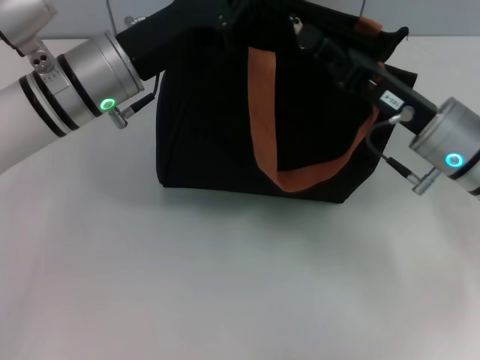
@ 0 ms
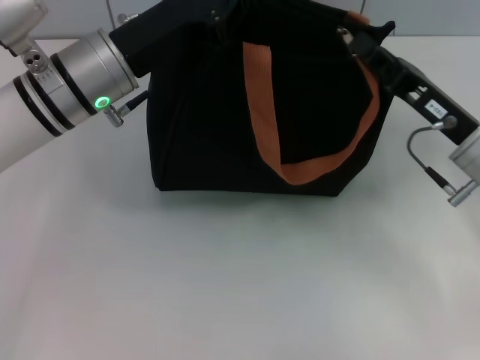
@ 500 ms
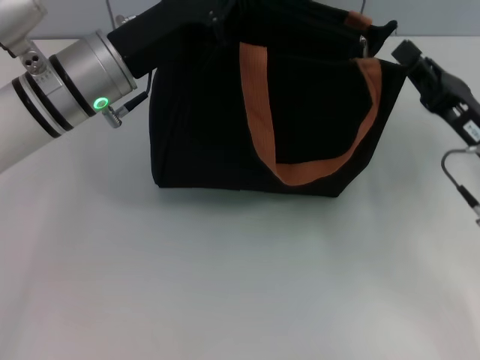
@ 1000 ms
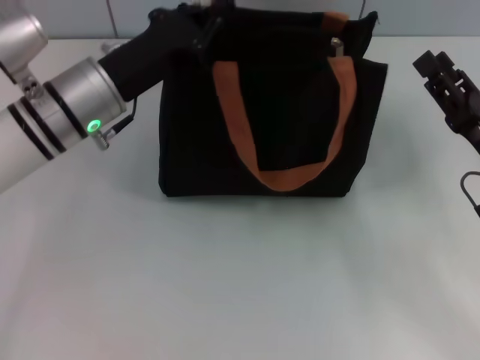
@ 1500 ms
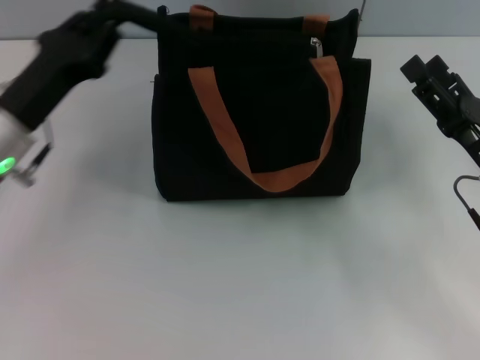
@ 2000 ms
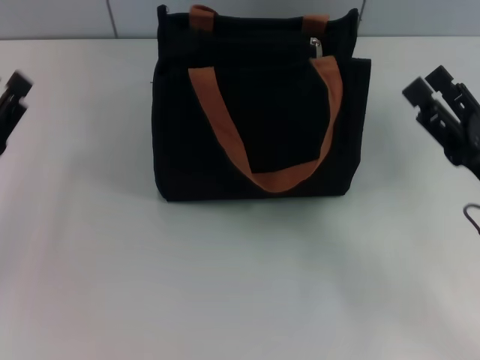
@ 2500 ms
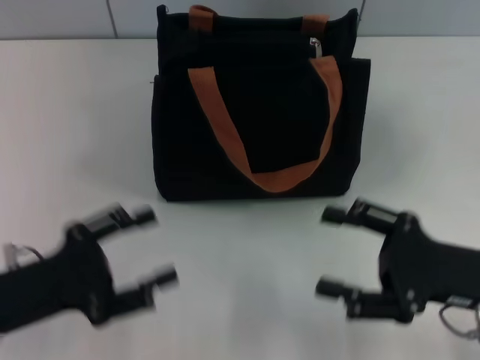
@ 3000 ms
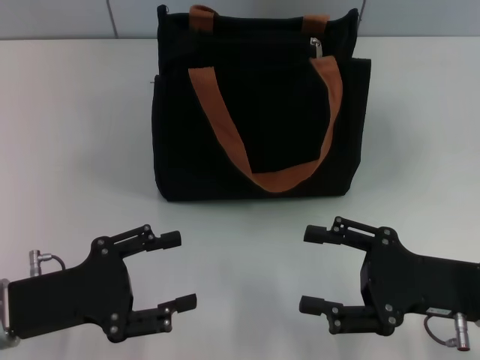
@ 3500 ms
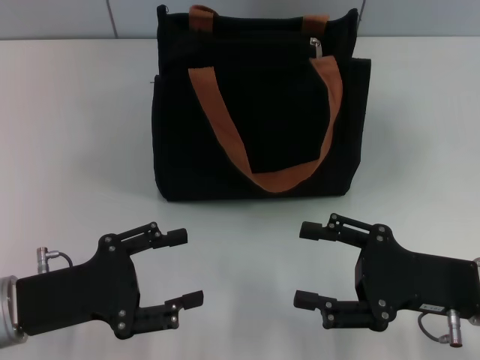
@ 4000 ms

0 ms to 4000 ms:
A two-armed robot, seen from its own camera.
Step, 1500 ms to 2000 ms: Grab the zipper with your left hand.
0 ms to 2000 ms: The right gripper moves backward and to the right, some 10 cm, and opens; the left gripper heads to the left, covering approximately 10 cm.
2000 ms to 4000 ms: The left gripper goes approximately 10 cm backward, and opens its fingers. The right gripper changes place by approximately 5 cm.
